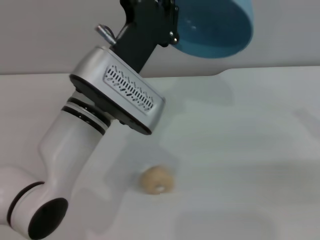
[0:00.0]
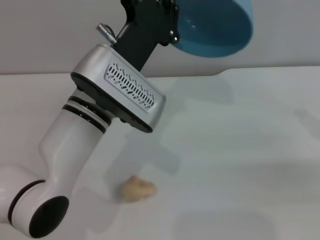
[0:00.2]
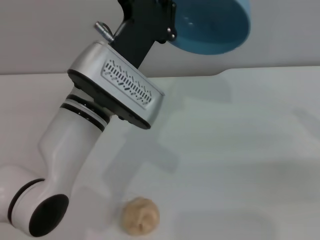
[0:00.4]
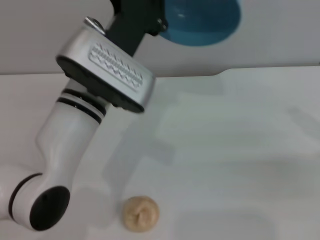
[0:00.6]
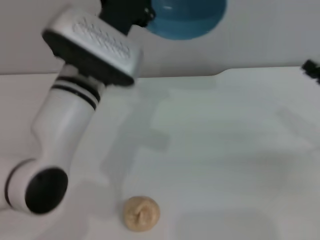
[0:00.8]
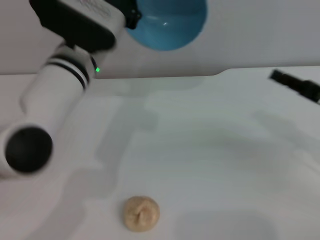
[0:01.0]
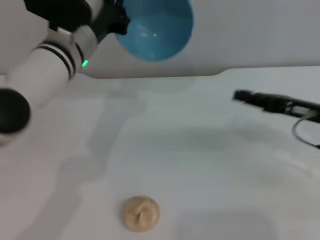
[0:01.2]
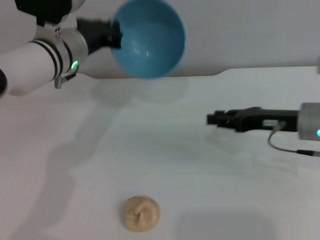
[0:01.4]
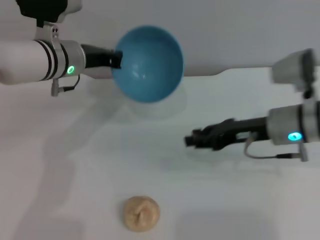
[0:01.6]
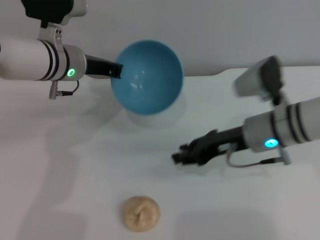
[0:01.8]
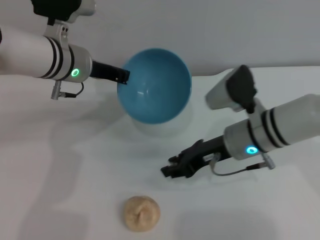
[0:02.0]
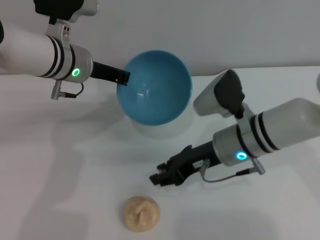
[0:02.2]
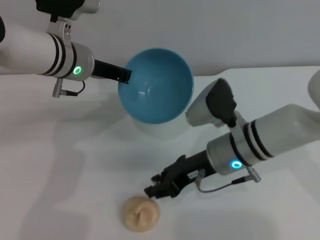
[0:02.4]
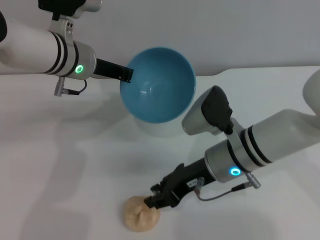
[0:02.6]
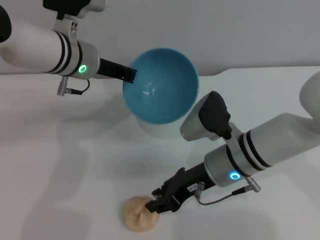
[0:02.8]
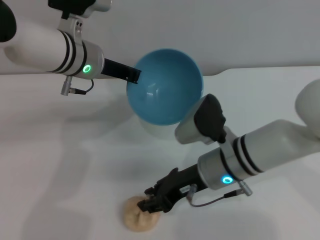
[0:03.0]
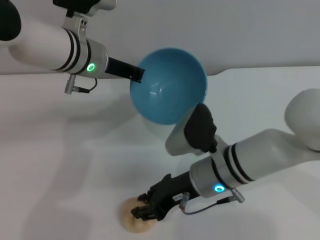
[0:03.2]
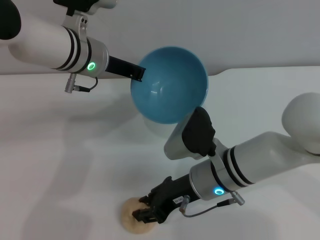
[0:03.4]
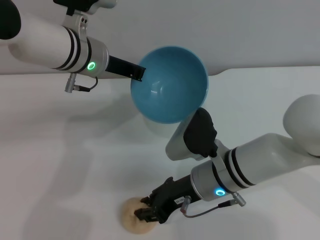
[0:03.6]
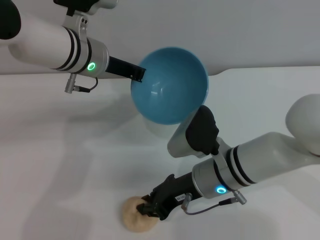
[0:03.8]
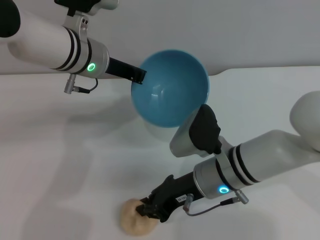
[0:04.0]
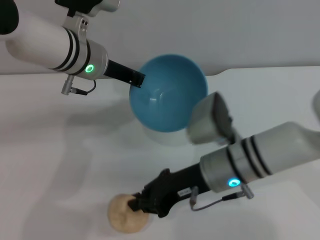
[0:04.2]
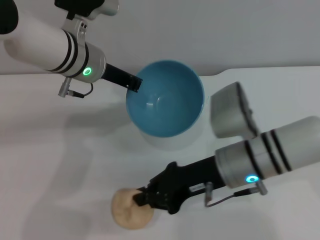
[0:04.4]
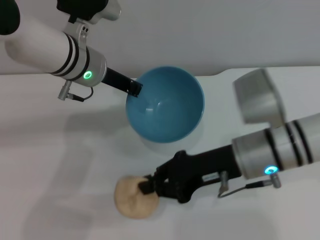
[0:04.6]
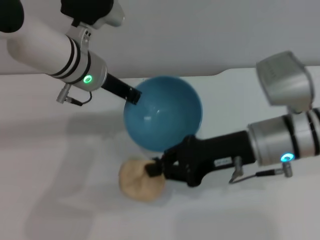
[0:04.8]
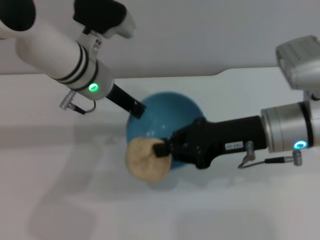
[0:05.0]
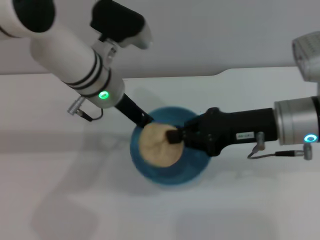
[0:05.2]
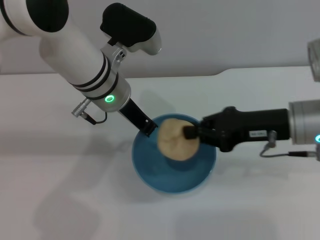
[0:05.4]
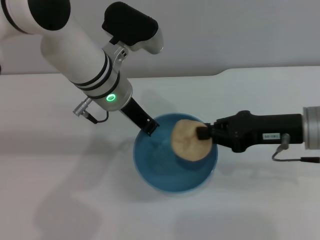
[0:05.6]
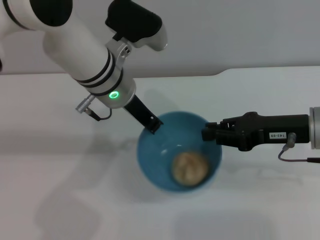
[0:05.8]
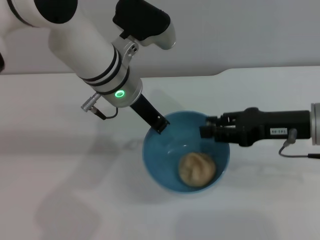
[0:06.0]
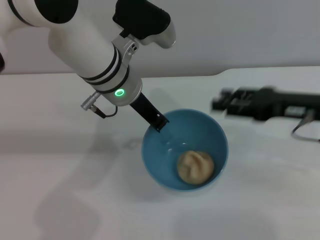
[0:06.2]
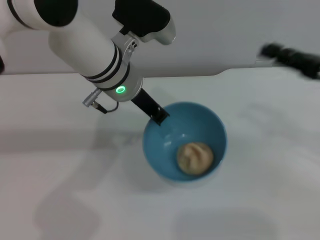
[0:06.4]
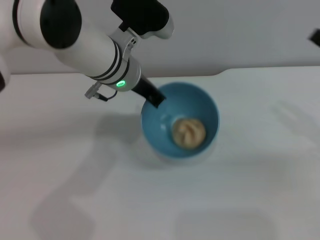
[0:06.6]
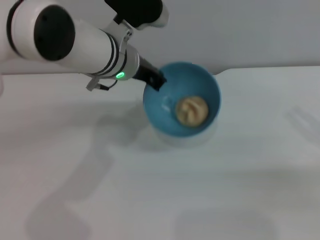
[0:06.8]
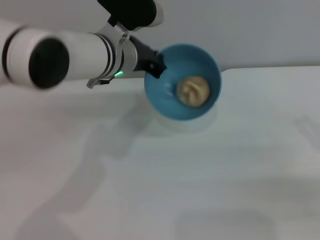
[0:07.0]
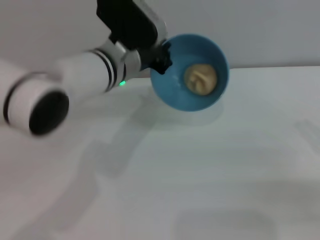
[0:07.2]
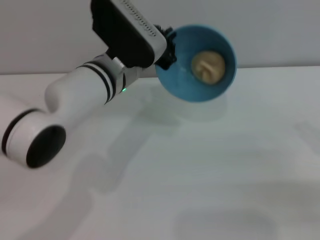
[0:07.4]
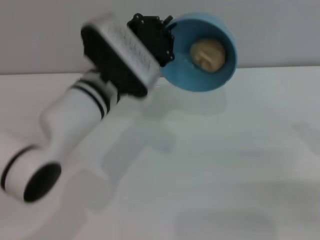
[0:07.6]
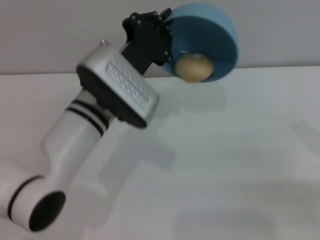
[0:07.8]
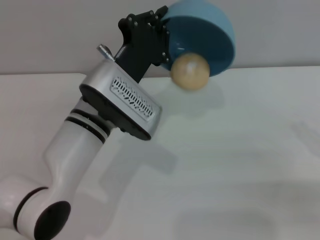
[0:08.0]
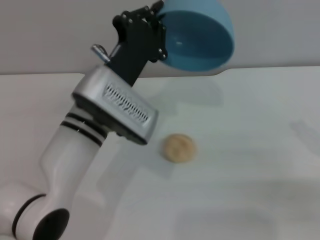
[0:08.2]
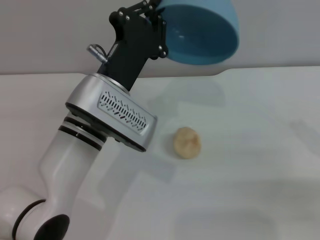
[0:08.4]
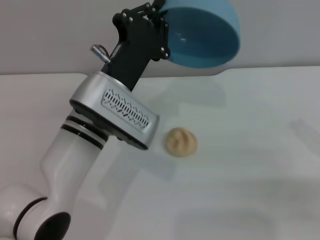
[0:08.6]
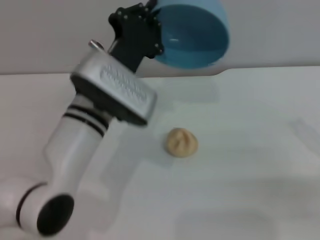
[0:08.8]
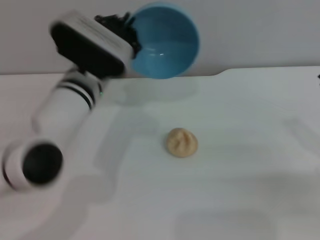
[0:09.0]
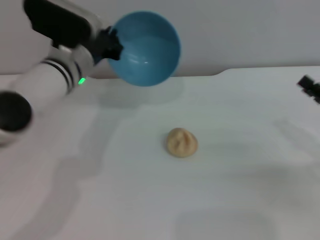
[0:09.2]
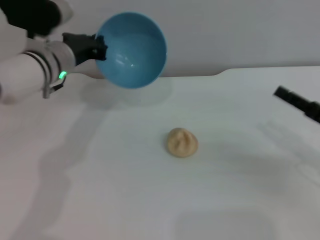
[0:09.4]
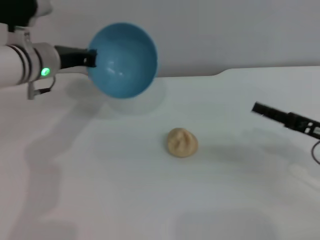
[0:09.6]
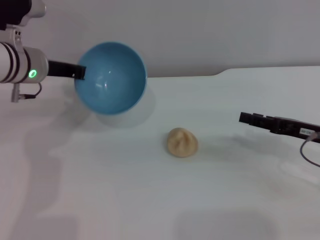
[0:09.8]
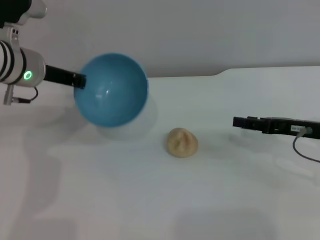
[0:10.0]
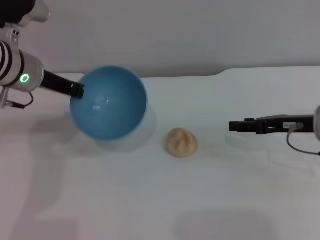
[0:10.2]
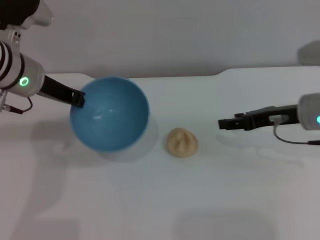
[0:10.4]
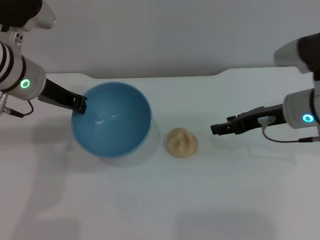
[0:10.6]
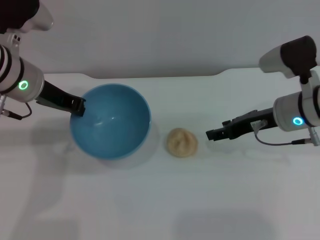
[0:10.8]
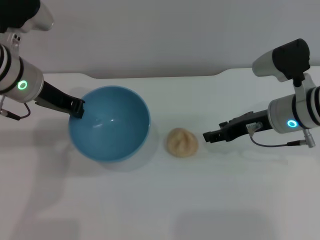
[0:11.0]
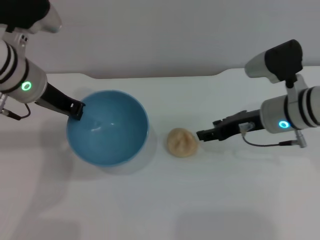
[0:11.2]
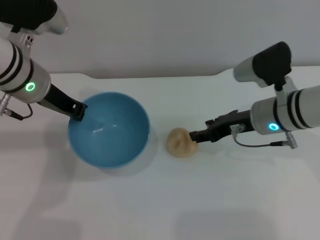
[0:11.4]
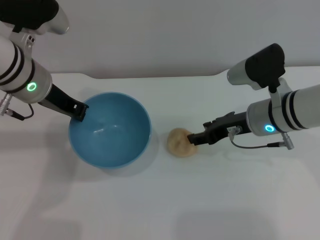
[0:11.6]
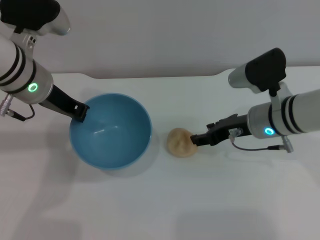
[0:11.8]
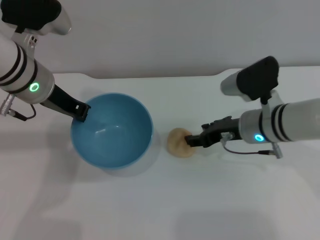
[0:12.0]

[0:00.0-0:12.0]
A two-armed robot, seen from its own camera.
Task of the whole recording: put the egg yolk pastry into the blue bowl and pour it out repeatedly.
Step, 0:00.0 to 0:04.6: Pick up the egg yolk pastry with the right gripper.
Step, 0:04.8 to 0:06.0: Place the egg yolk pastry into the bowl.
Step, 0:06.2 to 0:08.4: Pour the egg yolk pastry out of bowl.
0:00.0 to 0:01.6: The left gripper moves forward and to the left, approximately 15 cm. Meanwhile the right gripper moves to the left and forward, roughly 20 cm.
0:01.6 to 0:03.0: The right gripper heads to the left, covering roughly 10 cm.
0:03.0 to 0:04.4: The right gripper closes its fingers.
0:04.4 to 0:06.0: The left gripper goes about 5 cm to the right; the right gripper travels to the right by roughly 10 cm.
0:06.0 to 0:07.6: The right gripper heads to the right, backward and downward, covering roughly 15 cm, and opens its fingers, while the left gripper moves approximately 5 cm.
0:09.0 to 0:10.4: The left gripper travels to the left and upward by about 10 cm. The right gripper shifts about 15 cm forward and to the left.
0:10.4 to 0:12.0: The right gripper heads to the left, covering roughly 10 cm.

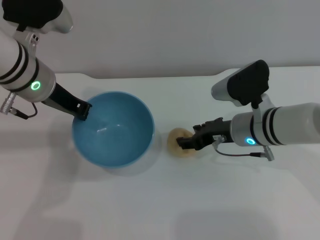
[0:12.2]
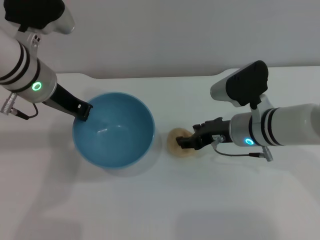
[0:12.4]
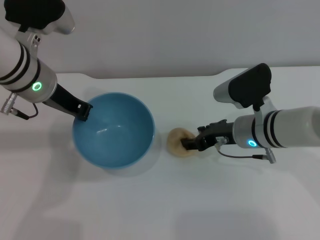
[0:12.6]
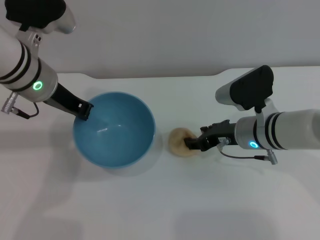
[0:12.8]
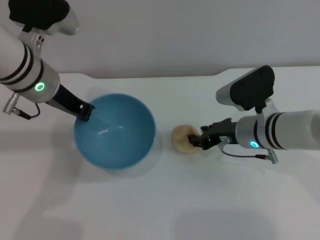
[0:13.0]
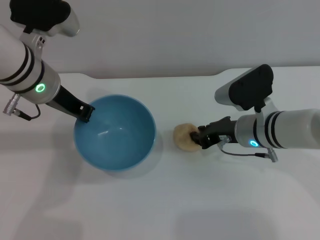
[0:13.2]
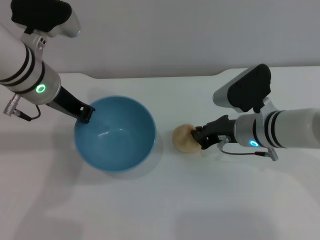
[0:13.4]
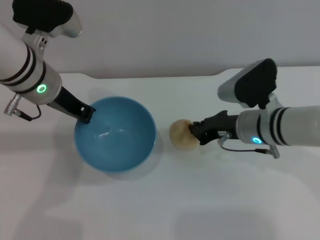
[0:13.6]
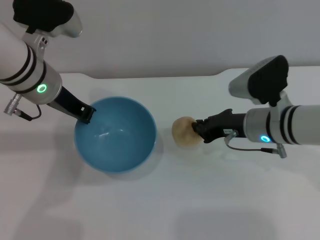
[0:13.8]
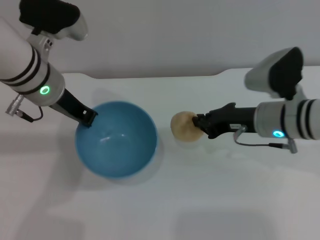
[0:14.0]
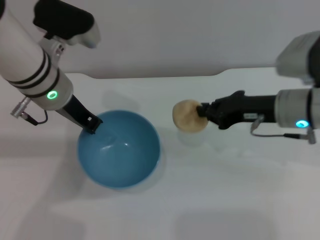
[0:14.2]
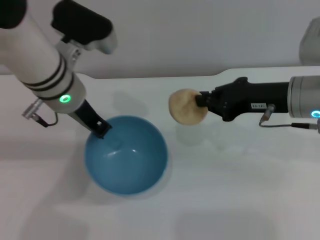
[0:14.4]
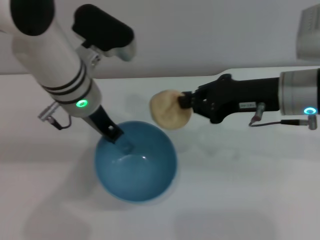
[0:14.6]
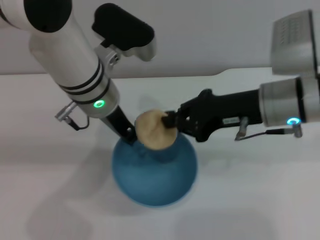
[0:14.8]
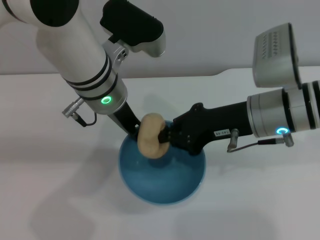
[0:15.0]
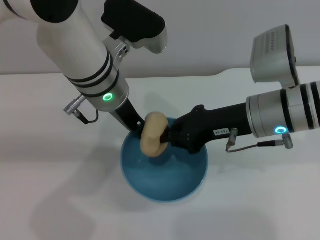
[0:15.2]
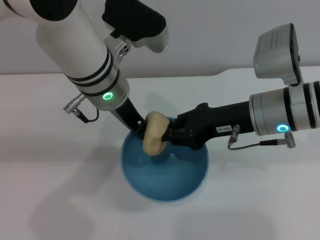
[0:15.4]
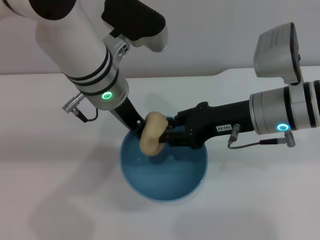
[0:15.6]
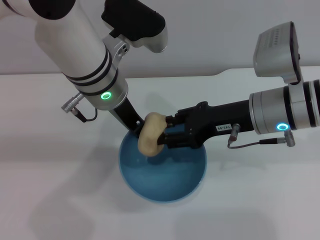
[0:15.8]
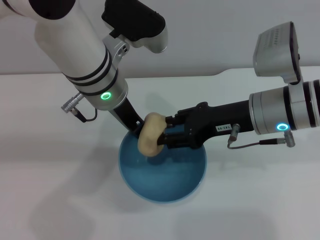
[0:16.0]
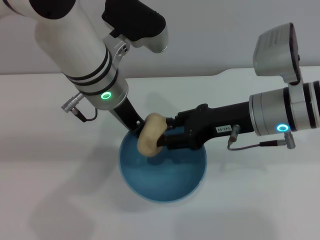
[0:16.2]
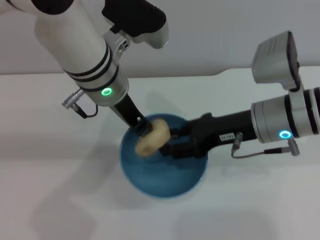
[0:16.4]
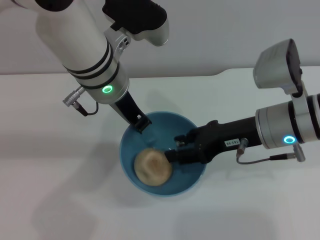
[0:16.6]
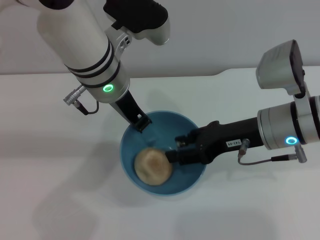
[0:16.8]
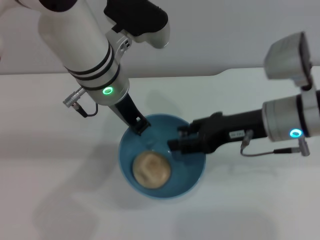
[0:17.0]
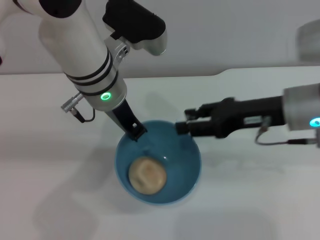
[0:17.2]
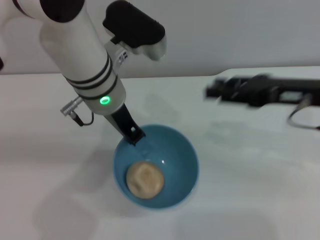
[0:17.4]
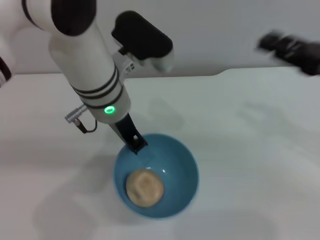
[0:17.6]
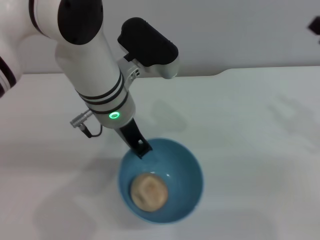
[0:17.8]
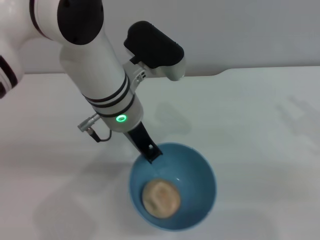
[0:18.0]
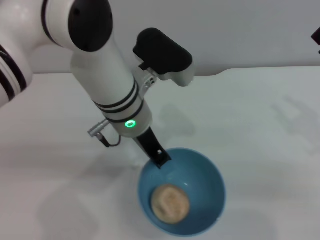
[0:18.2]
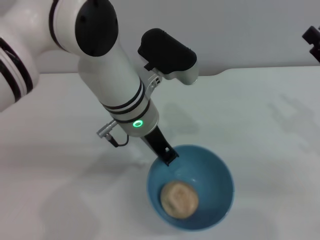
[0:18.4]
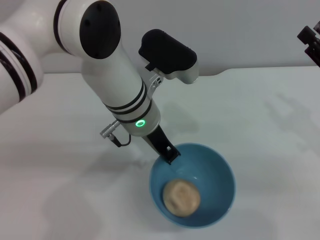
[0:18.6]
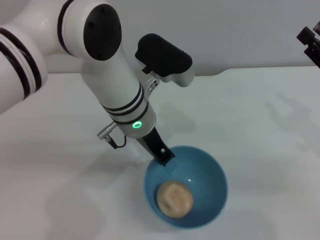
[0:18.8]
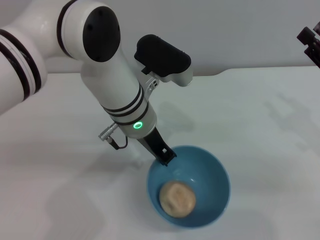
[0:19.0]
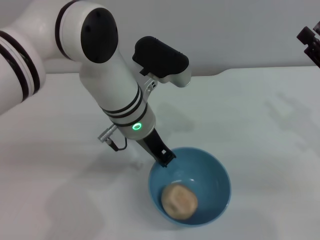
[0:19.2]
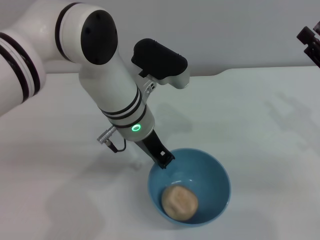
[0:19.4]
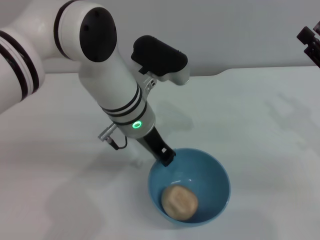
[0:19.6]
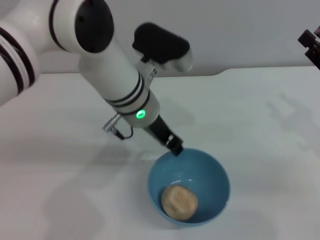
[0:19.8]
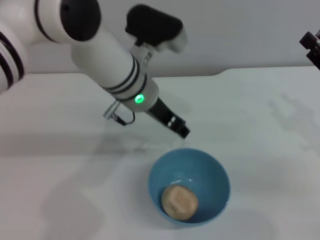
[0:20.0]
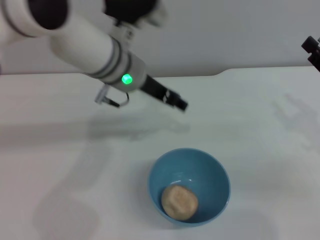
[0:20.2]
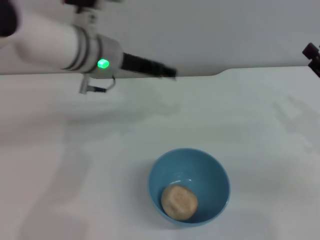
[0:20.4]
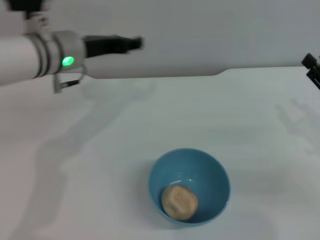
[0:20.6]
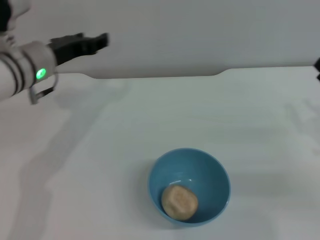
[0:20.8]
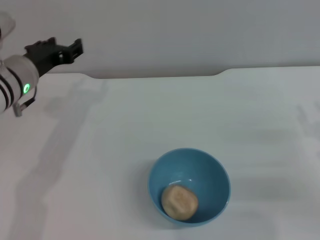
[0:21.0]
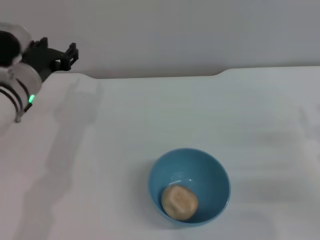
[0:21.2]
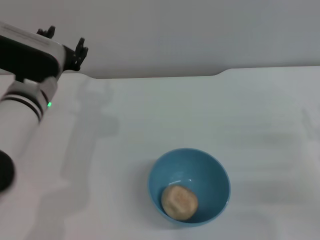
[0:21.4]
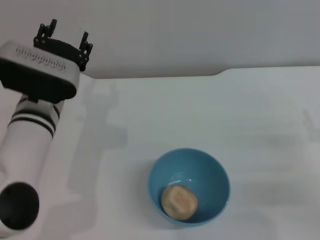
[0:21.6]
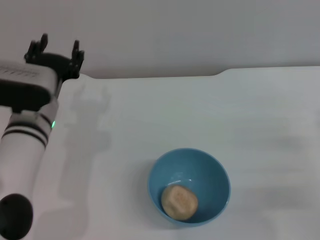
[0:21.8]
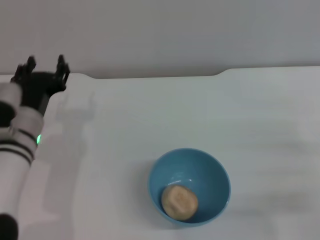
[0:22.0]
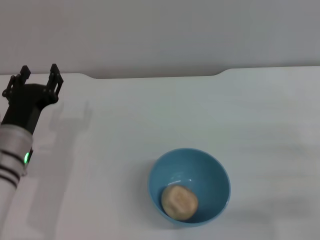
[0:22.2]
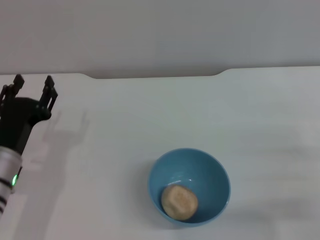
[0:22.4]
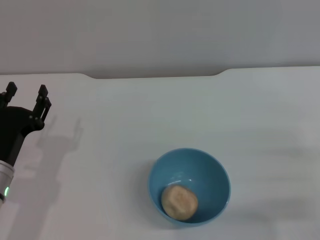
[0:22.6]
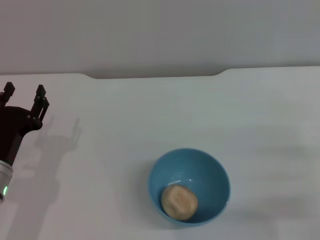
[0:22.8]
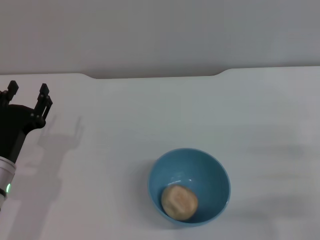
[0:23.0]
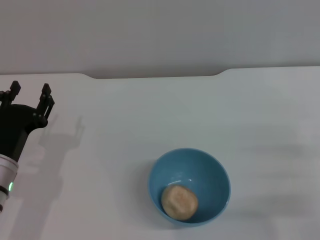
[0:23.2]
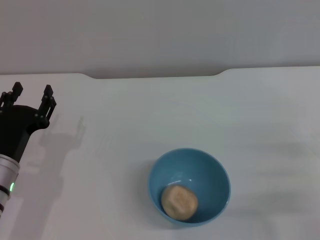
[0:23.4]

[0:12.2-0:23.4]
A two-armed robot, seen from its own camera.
Task of the whole recording: put the egg yolk pastry into the blue bowl and pour it out repeatedly.
Step, 0:14.4 to 0:17.0: Place the egg yolk pastry into the bowl.
Step, 0:17.2 to 0:20.0: Place the bowl on the table.
0:12.2 to 0:13.8: The right gripper closes its fingers.
0:13.8 to 0:15.4: The left gripper goes approximately 10 cm to the right, while the right gripper shifts some 5 cm upward.
0:15.4 to 0:17.0: The right gripper opens.
0:17.0 to 0:18.6: The right gripper shifts some 15 cm to the right. The left gripper shifts roughly 5 cm downward.
0:18.6 to 0:20.2: The left gripper shifts by roughly 5 cm, and opens up.
0:20.2 to 0:21.8: The right gripper heads downward, covering some 5 cm; the left gripper travels to the left, downward and backward by roughly 15 cm.
0:21.8 to 0:23.4: The left gripper heads backward, to the left and downward, covering some 10 cm.
